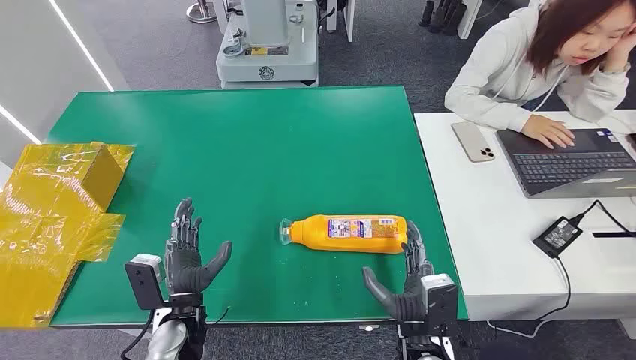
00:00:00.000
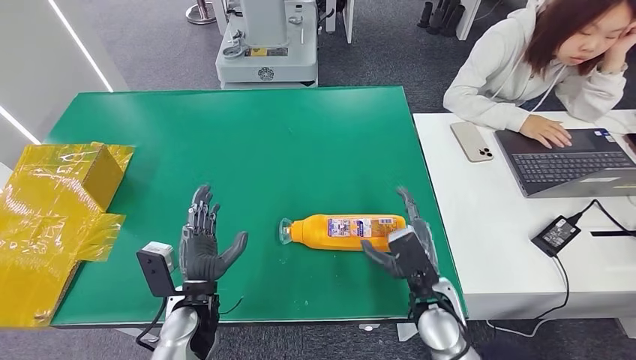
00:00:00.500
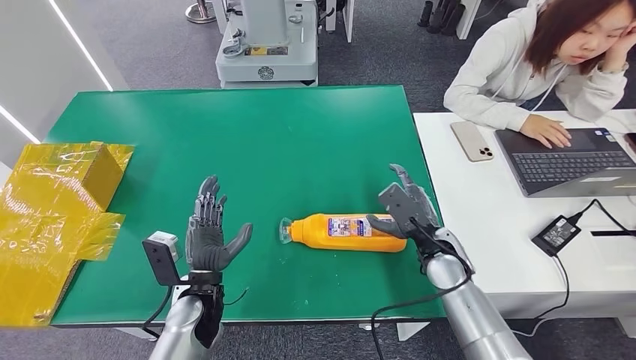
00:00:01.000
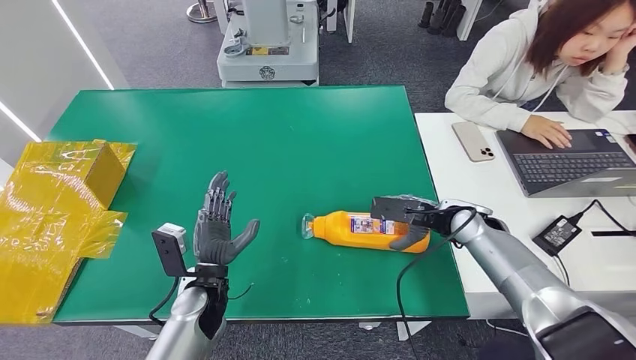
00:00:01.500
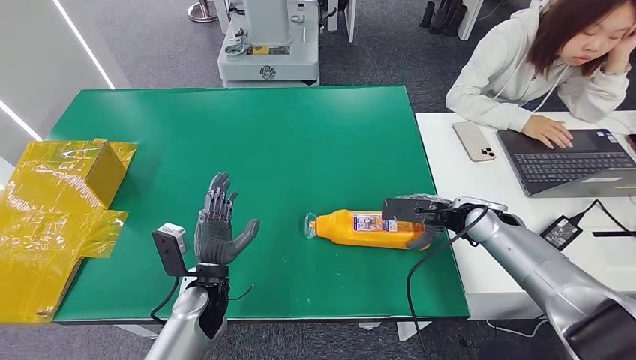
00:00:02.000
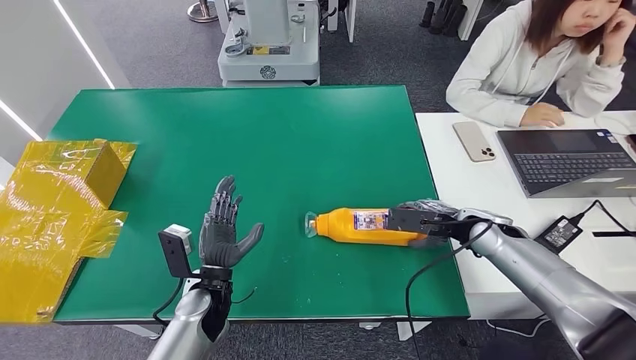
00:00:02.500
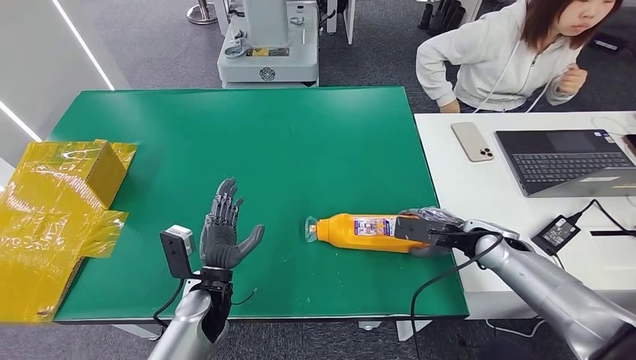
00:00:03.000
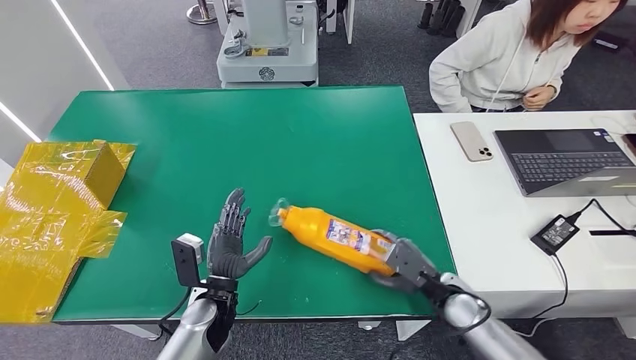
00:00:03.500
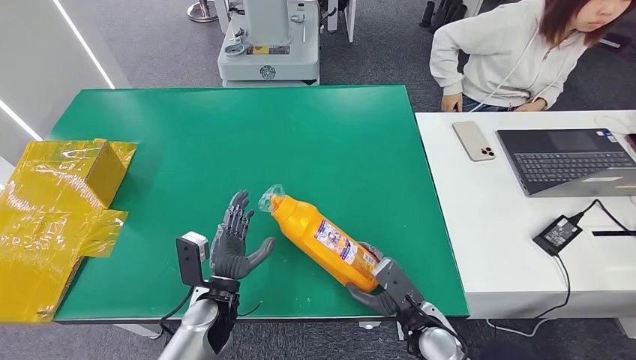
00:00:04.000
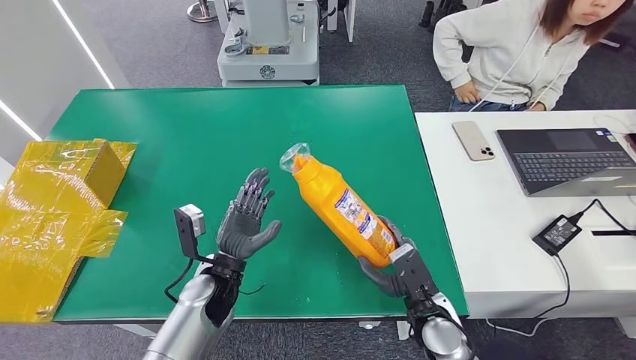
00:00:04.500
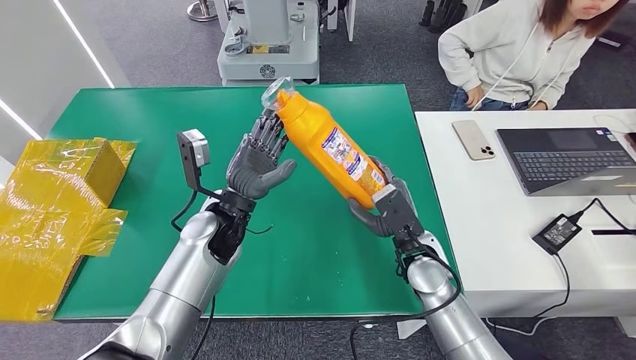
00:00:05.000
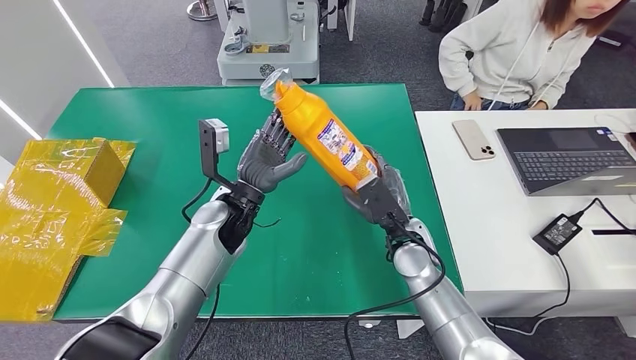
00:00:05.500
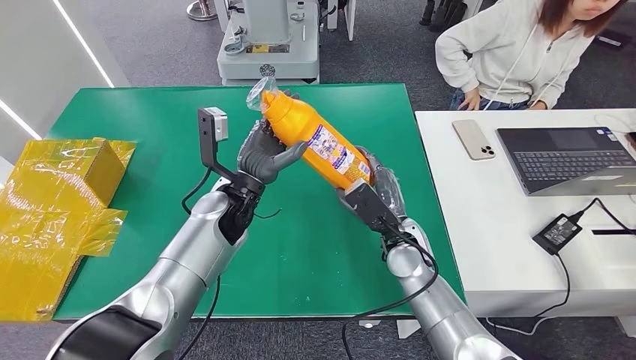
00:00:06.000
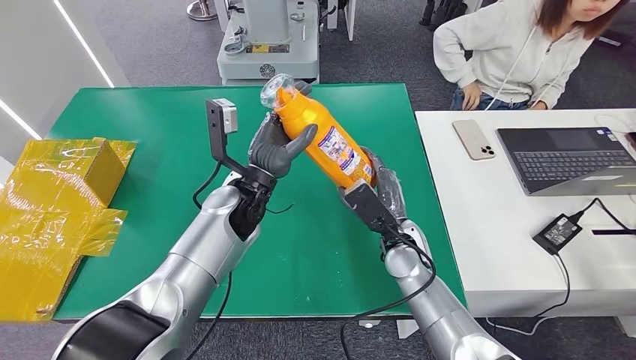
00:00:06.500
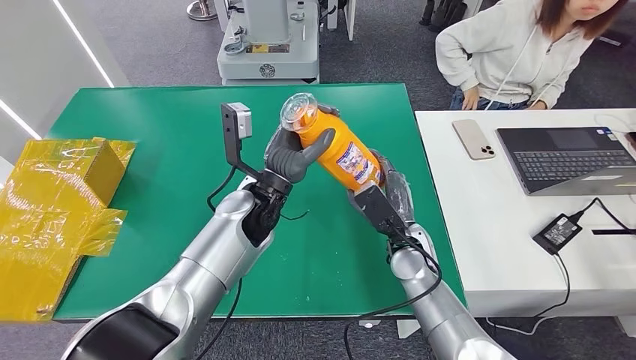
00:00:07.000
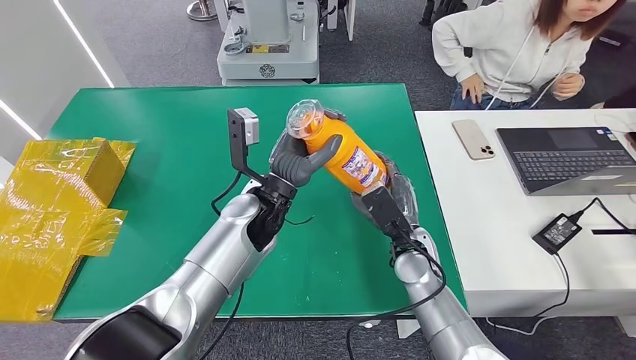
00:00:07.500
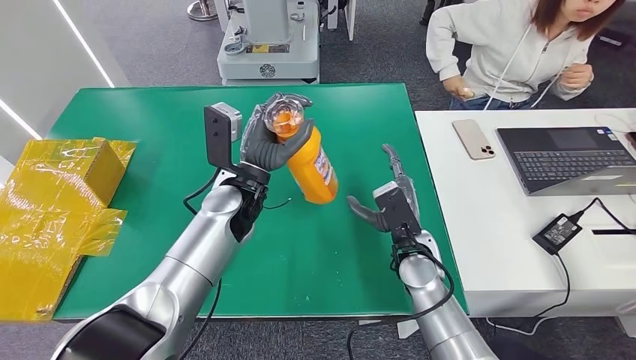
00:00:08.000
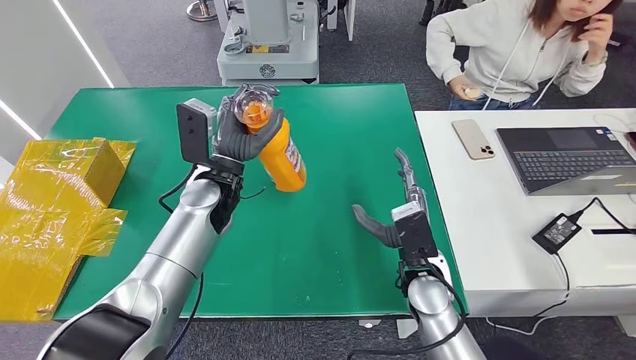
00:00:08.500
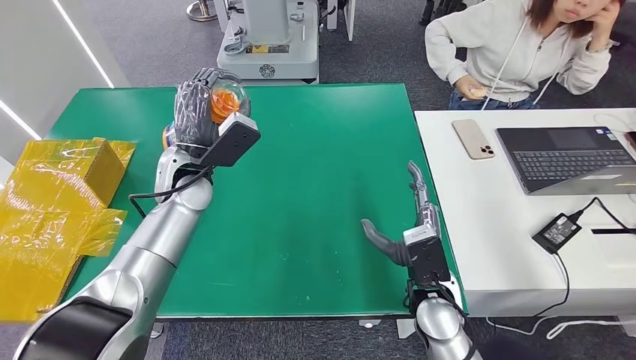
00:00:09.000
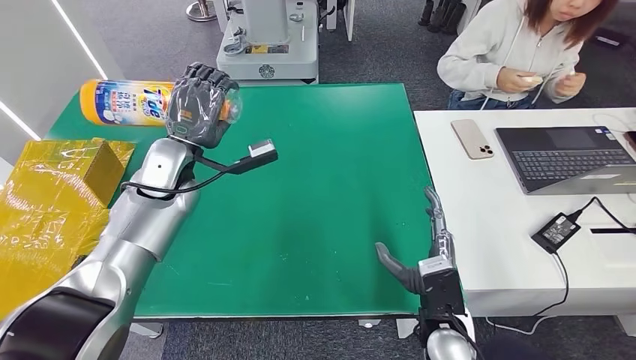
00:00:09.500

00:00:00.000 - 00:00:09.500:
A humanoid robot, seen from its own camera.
Step, 00:00:00.000 - 00:00:06.500: Pick up the bottle from the table.
00:00:05.500 - 00:00:07.500: The left hand travels to the right by about 5 cm.

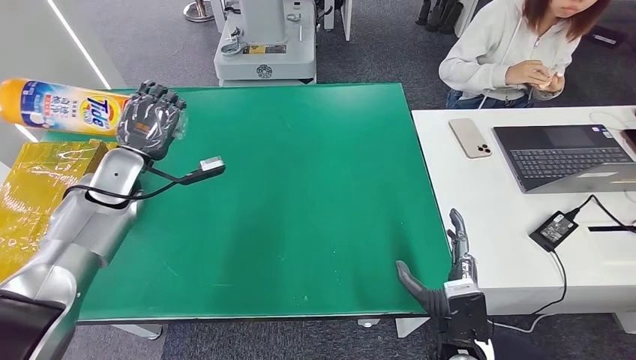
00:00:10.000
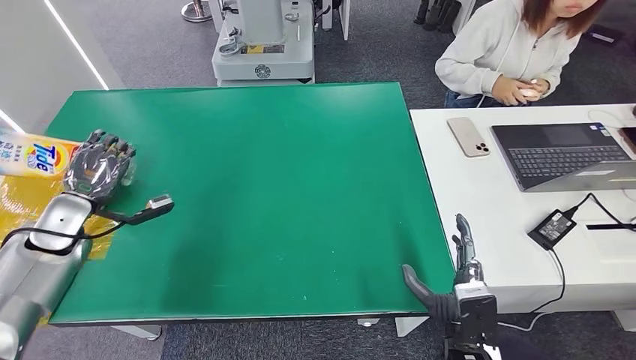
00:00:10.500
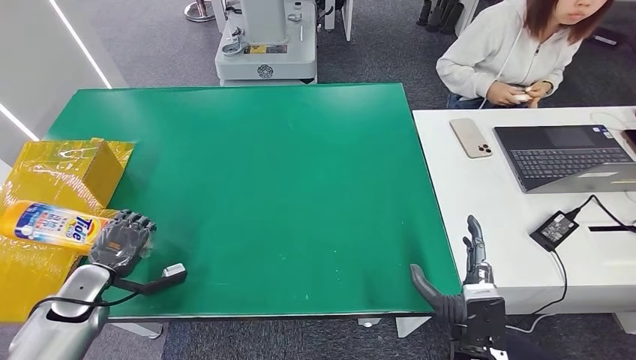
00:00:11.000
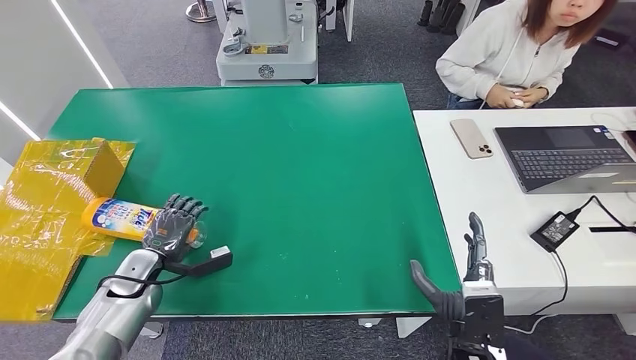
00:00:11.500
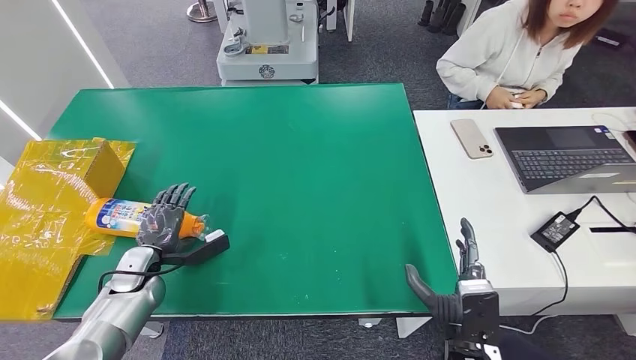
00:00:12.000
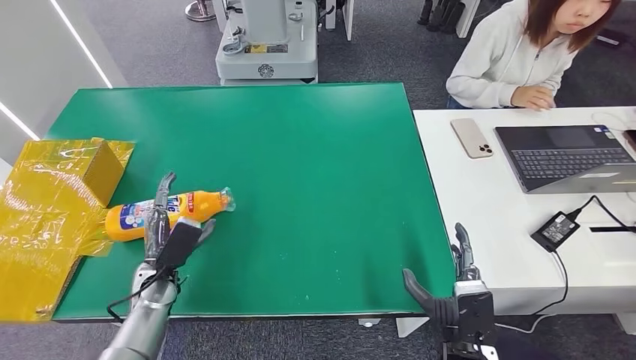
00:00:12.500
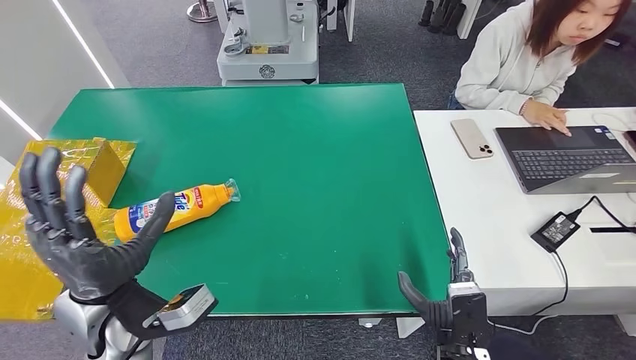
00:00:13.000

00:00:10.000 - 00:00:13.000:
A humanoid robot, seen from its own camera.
Step, 00:00:10.000 - 00:00:13.000: Turn the bottle to the front side.
00:00:11.500 - 00:00:13.000: The left hand heads upward, to the right and backward, covering roughly 25 cm.
